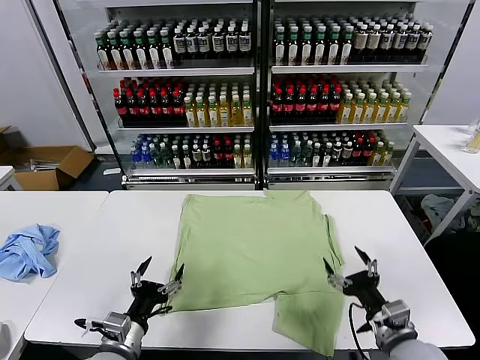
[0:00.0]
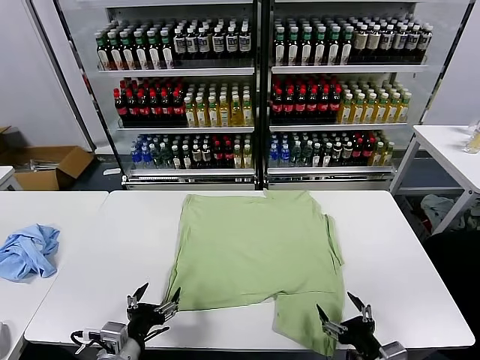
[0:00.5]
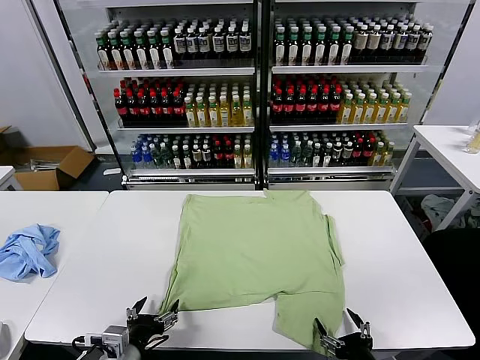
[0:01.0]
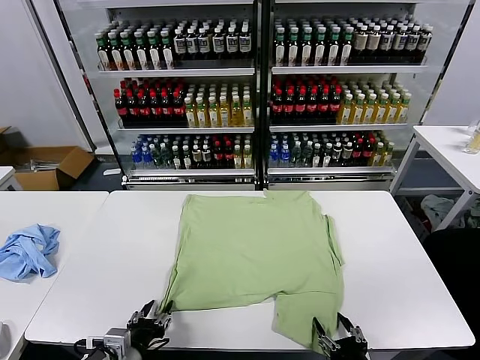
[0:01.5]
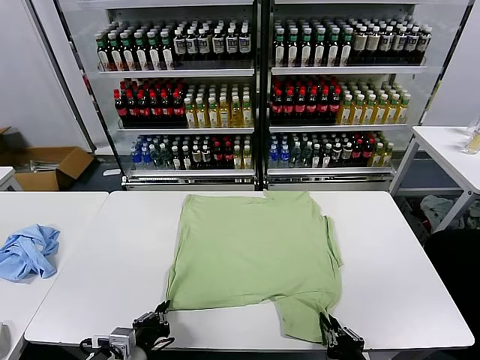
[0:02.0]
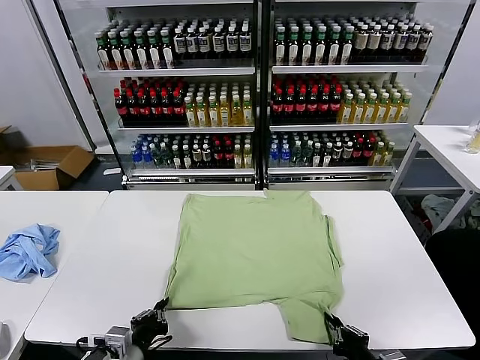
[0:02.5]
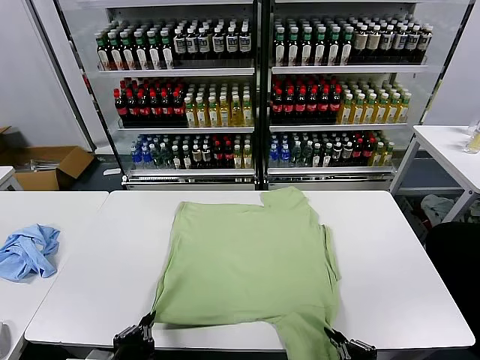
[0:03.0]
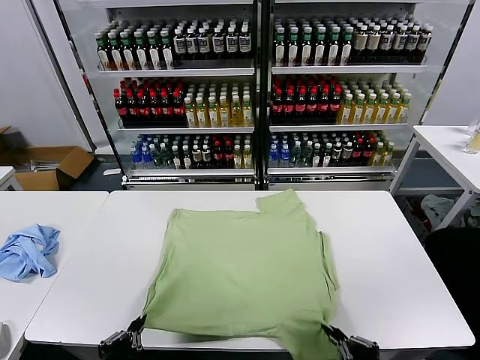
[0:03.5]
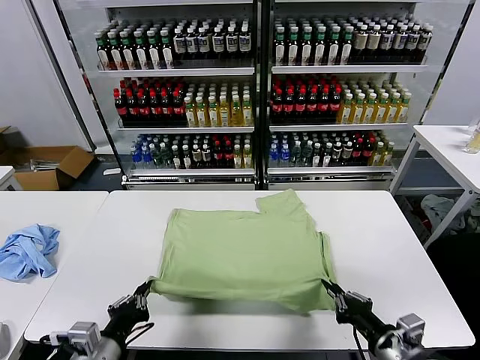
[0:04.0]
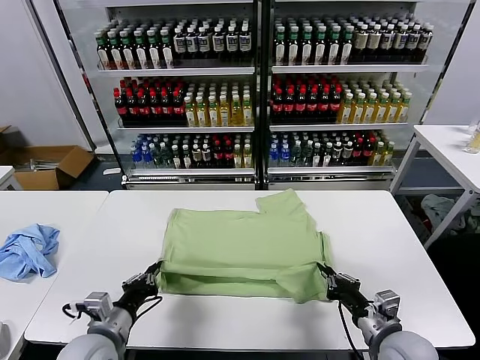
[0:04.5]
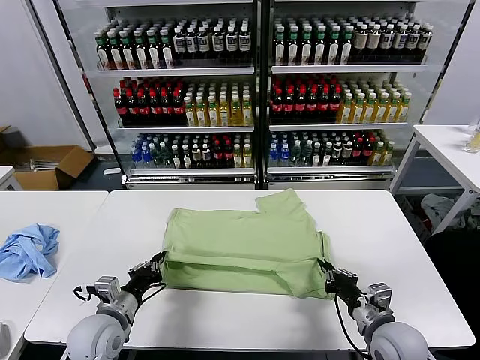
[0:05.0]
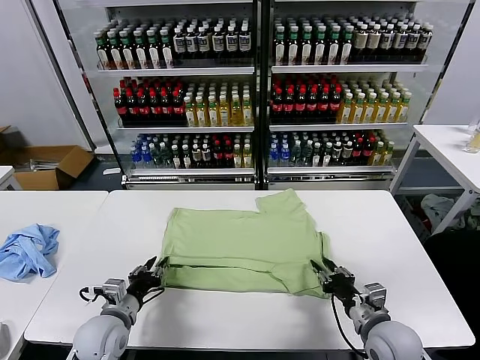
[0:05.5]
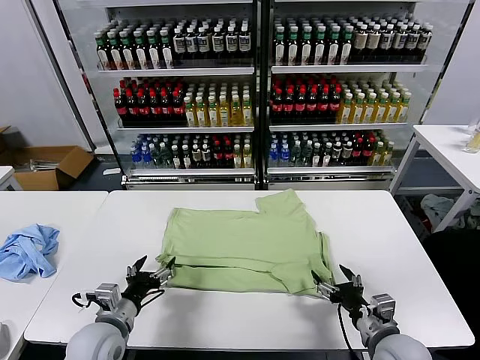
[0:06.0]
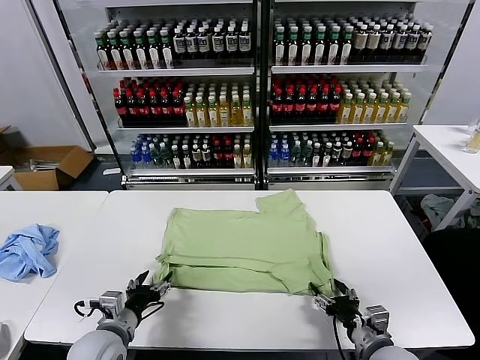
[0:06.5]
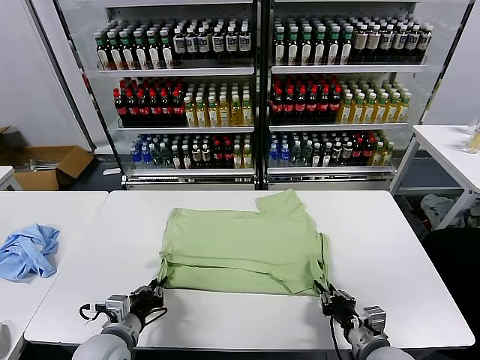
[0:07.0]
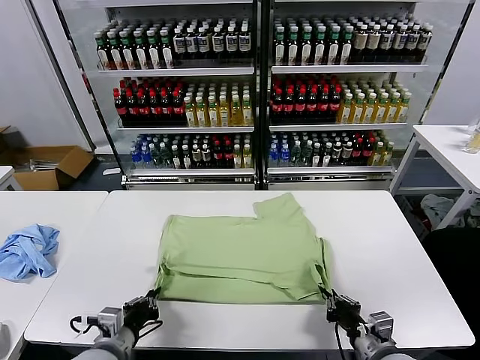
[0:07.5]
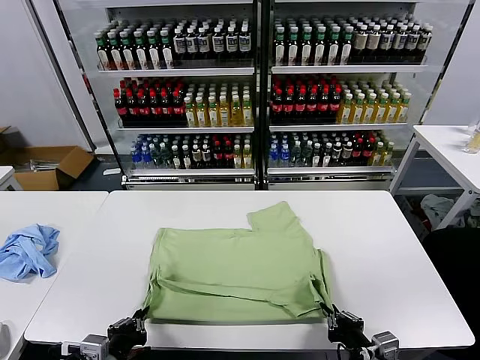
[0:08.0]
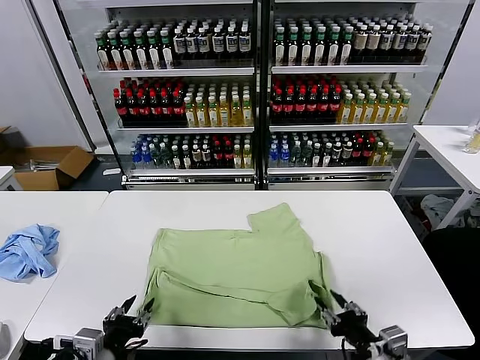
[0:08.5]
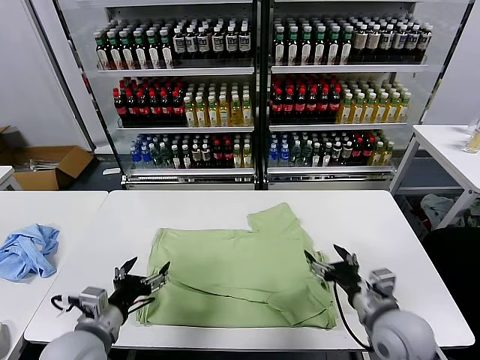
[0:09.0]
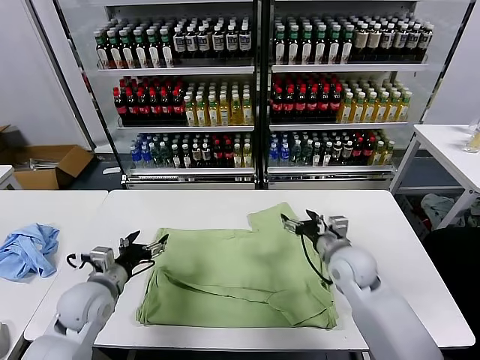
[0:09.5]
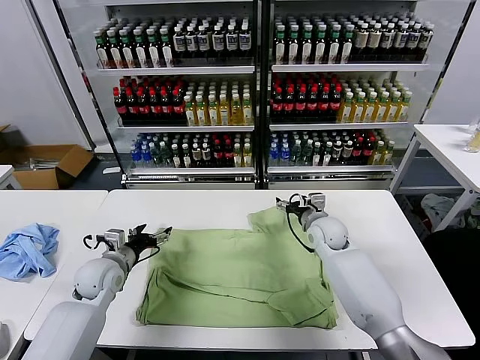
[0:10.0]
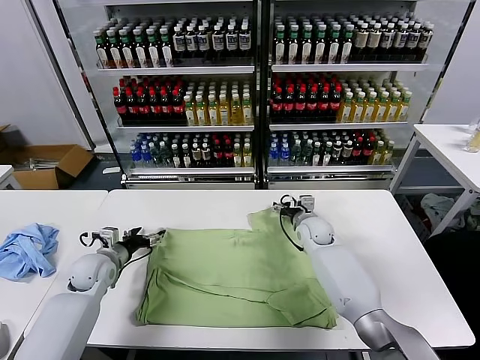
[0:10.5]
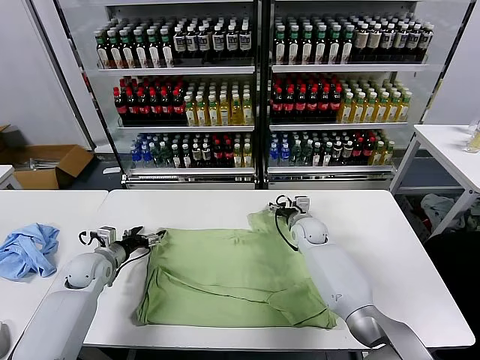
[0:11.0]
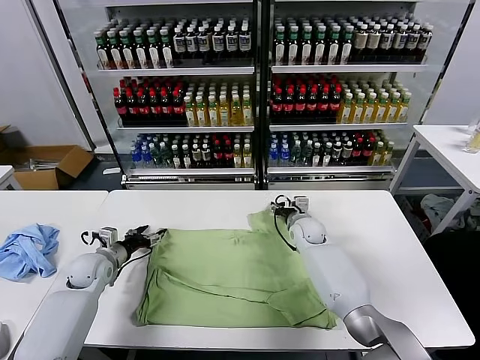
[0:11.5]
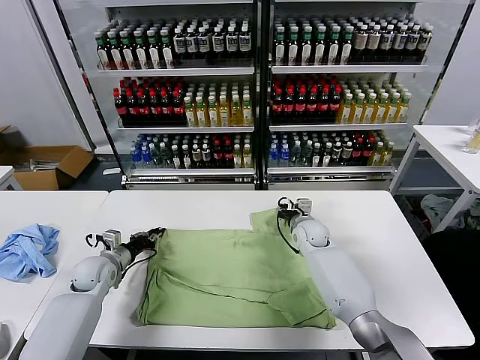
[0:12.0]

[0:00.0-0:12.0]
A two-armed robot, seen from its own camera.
Task of the whole recording: fold and organize the clothes.
Step, 0:00.0 to 0:02.5: use both grippers simultaneously to clamp the lower edge of the clothing fabric.
Step, 0:03.0 to 0:05.5: use both grippers to drag the lower edge of the fabric forward and fold it over the upper edge.
Step, 0:06.0 to 0:08.5: Drag the clothes downward with both gripper.
0:02.0 to 0:04.0: The left gripper moves upward, some 5 cm, while the right gripper shifts approximately 10 cm upward and forward.
0:04.0 to 0:06.0: The right gripper is displaced downward by some 5 cm, and opens up; the left gripper travels forward by roughly 10 cm, and opens up.
0:06.0 to 0:08.0: The grippers both shift backward by some 10 cm. The right gripper closes up, while the left gripper closes.
0:08.0 to 0:10.0: The two grippers go roughly 30 cm forward. The right gripper opens its fingers, while the left gripper opens.
0:10.0 to 0:12.0: The right gripper changes place by roughly 5 cm, and closes; the left gripper ends up approximately 5 cm from where it was, and closes.

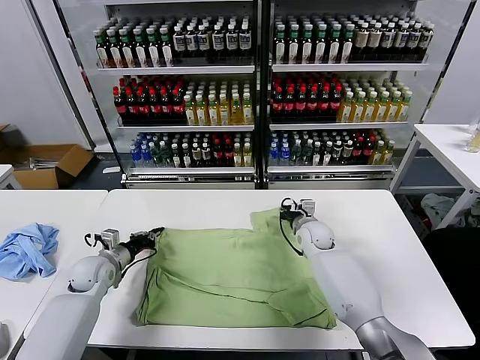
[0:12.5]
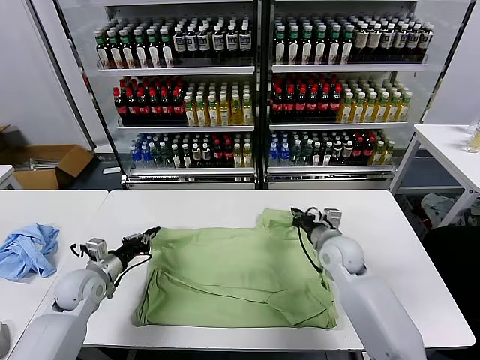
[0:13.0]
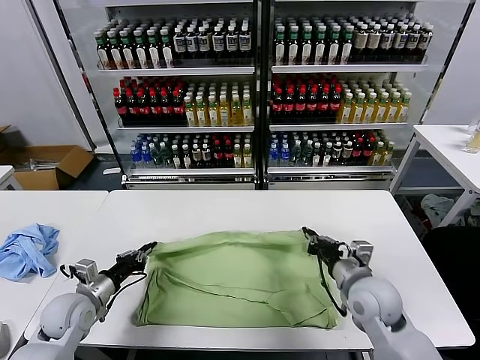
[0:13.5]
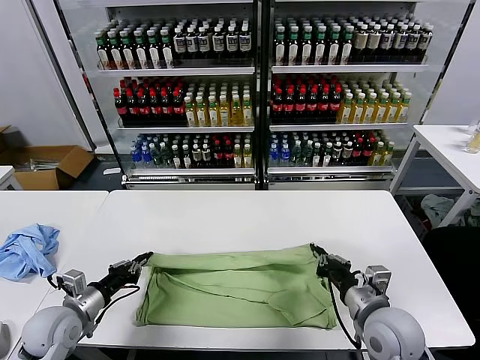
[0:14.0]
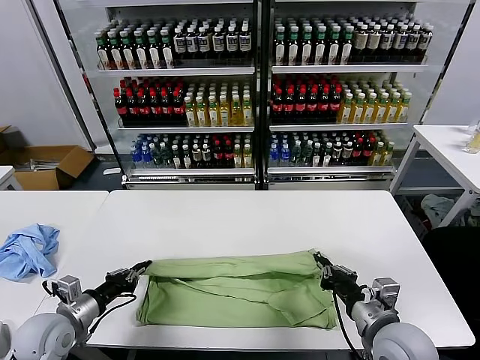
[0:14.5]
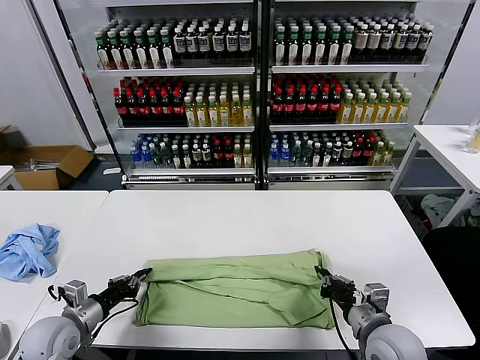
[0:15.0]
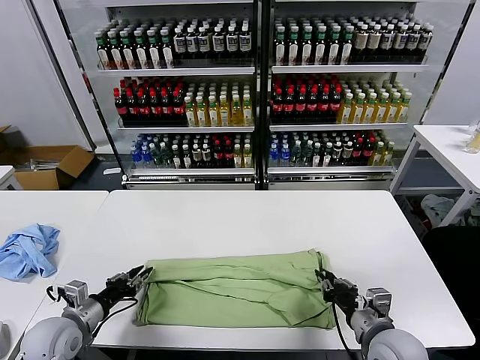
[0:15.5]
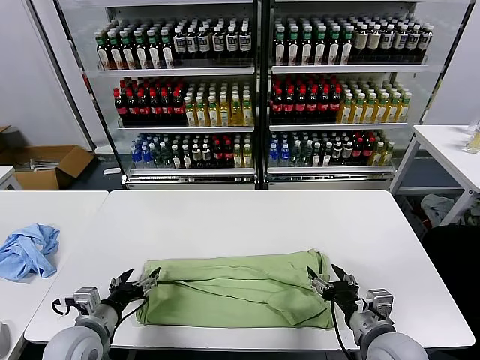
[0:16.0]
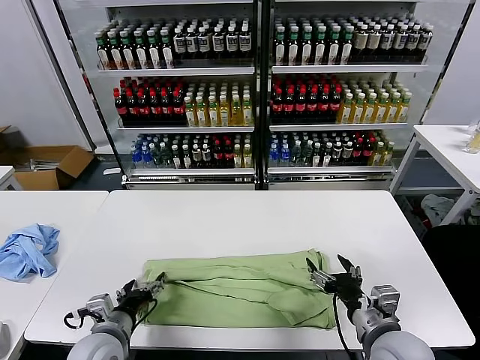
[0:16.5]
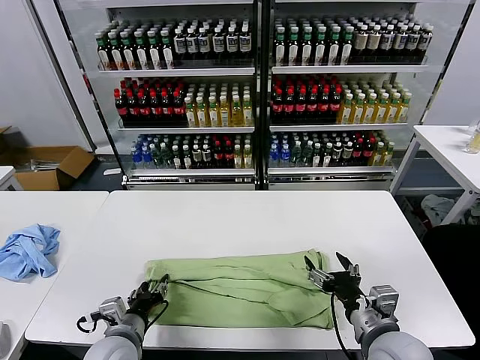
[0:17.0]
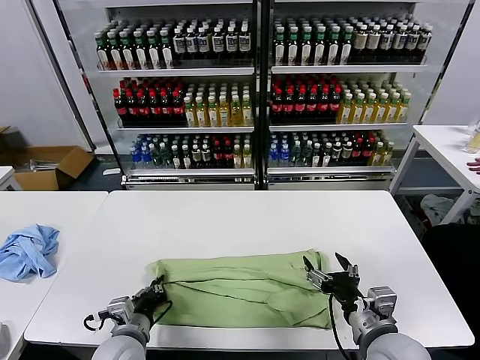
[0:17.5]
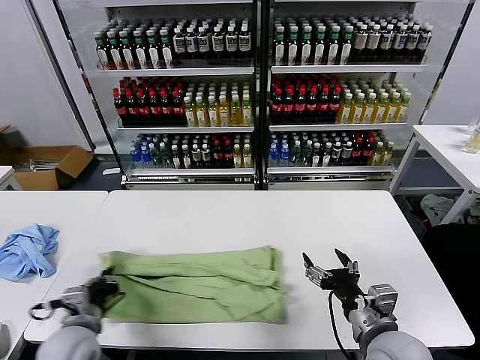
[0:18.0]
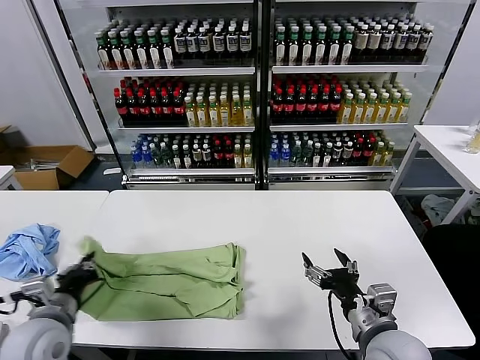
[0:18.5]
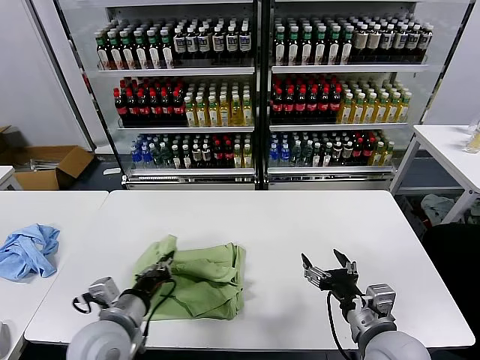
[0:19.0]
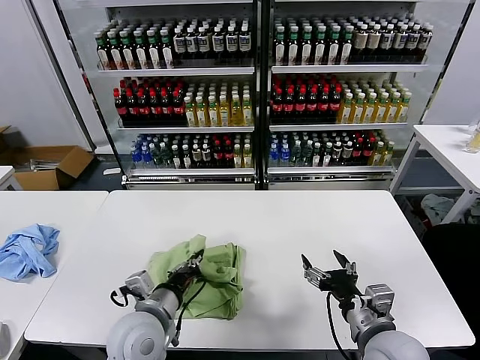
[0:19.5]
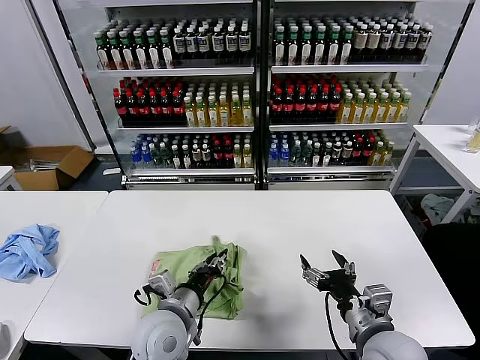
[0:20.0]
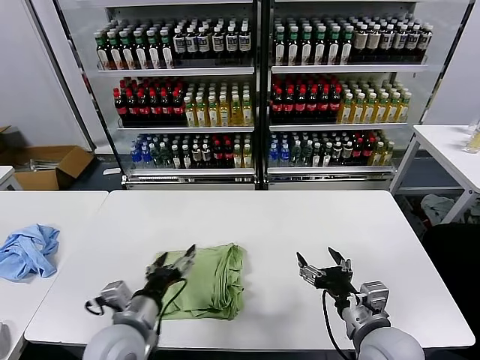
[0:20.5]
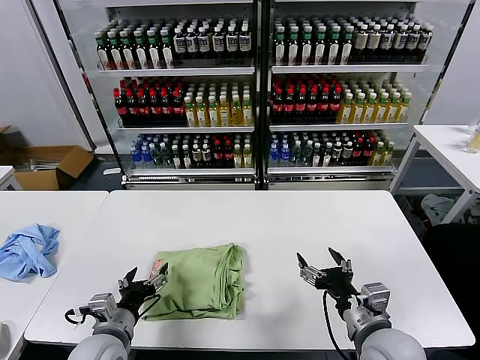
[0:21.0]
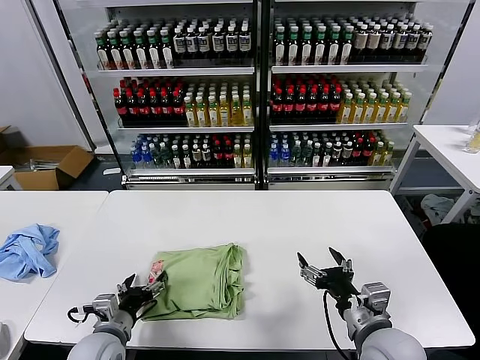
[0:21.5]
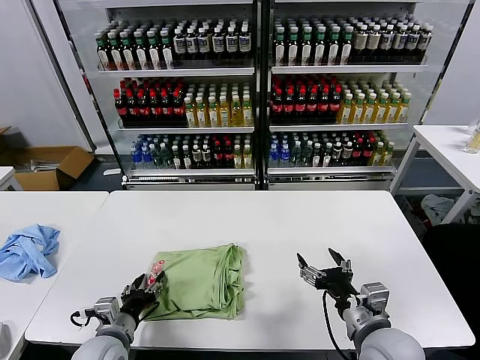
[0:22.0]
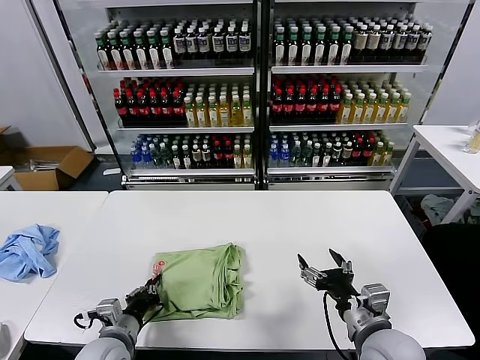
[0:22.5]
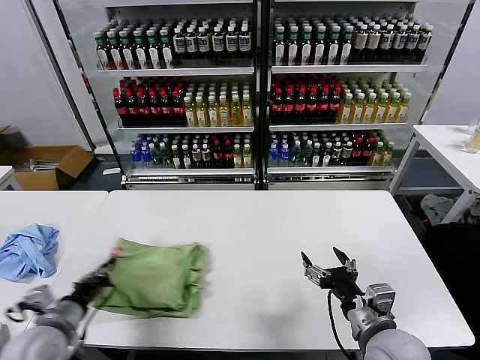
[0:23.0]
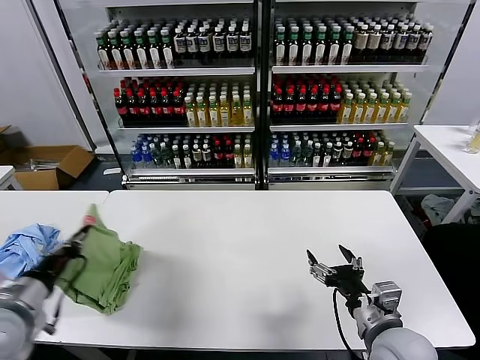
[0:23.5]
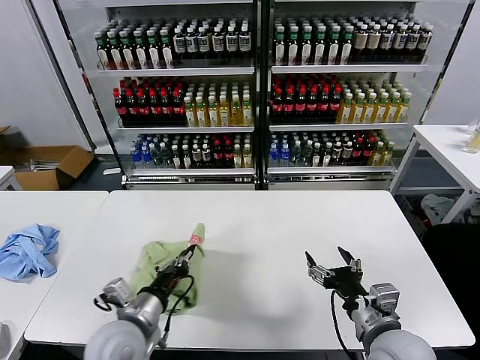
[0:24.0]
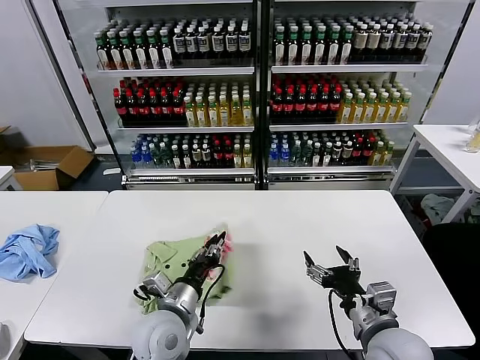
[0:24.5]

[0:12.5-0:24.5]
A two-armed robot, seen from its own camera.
Task of the whole recording: fold and organize the clothes.
Step, 0:12.5 to 0:15.5: use both grippers to drag the upper edge of the fabric backward and fold it over the lower edge.
Step, 0:16.0 to 0:17.0: use the left gripper to clamp the left edge of the fabric.
Step, 0:18.0 to 0:20.0: use the left gripper to drag the left edge of the fabric to the left and folds it over the right edge.
0:12.5 to 0:14.5: The right gripper is displaced backward by roughly 30 cm. The left gripper moves backward, roughly 15 cm.
0:14.5 to 0:16.5: The right gripper opens up, while the left gripper heads to the right, covering about 10 cm, and opens up.
0:16.5 to 0:18.5: The left gripper heads upward and to the left, covering roughly 10 cm, and closes up.
0:18.5 to 0:20.5: The left gripper moves to the right, roughly 15 cm, and opens.
0:20.5 to 0:22.5: The left gripper heads downward and to the left, covering some 10 cm, and closes.
0:22.5 to 0:24.5: The left gripper shifts roughly 15 cm to the right and upward.

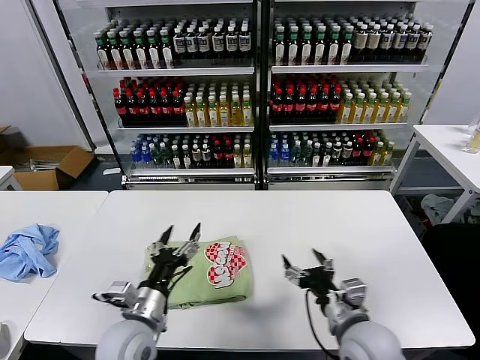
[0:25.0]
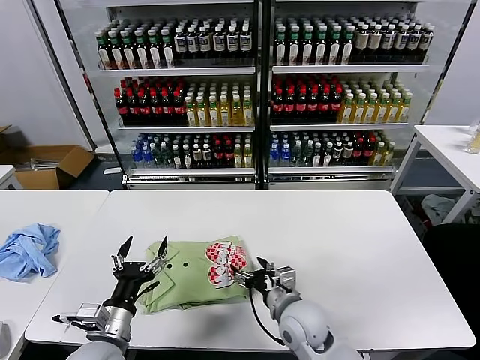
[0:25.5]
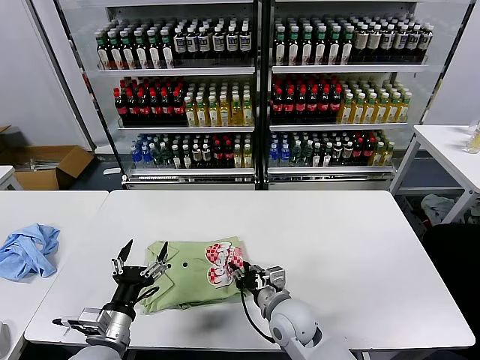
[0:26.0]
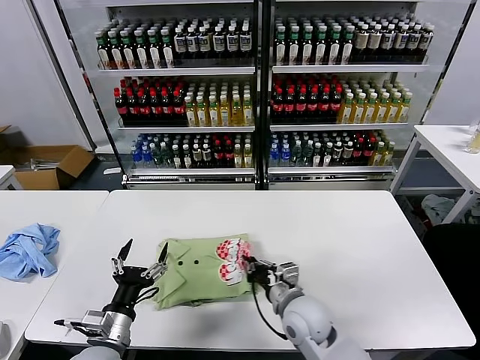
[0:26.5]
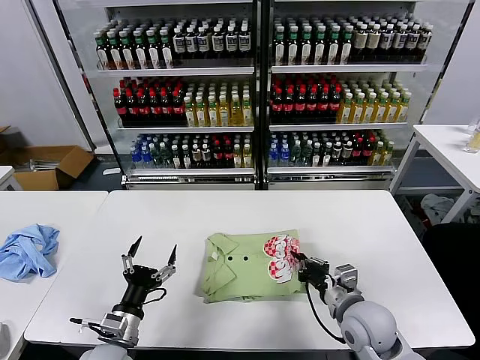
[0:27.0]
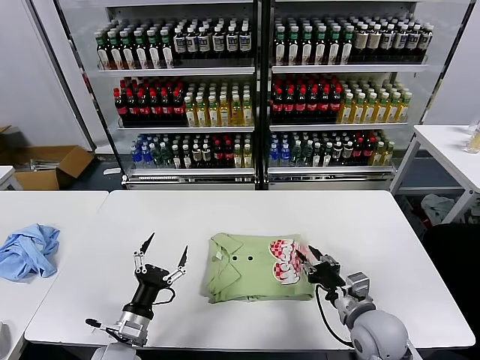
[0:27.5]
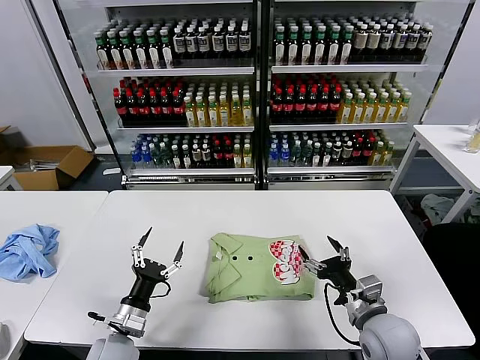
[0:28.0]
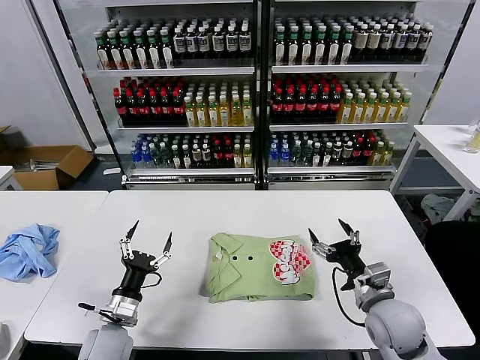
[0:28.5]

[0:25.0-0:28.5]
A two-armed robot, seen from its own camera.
Task of the whole recording: fold and organize the clothes.
Step, 0:25.0 to 0:27.5: Drag the clothes to the center of the table.
0:25.0 to 0:27.0: The right gripper shifts roughly 5 cm forward, moves some 10 cm to the left and comes back, and closes. Meanwhile the left gripper shifts some 10 cm to the left and downward.
0:27.0 to 0:28.5: The left gripper moves roughly 5 cm. Meanwhile the right gripper changes place by about 5 cm, and opens up.
